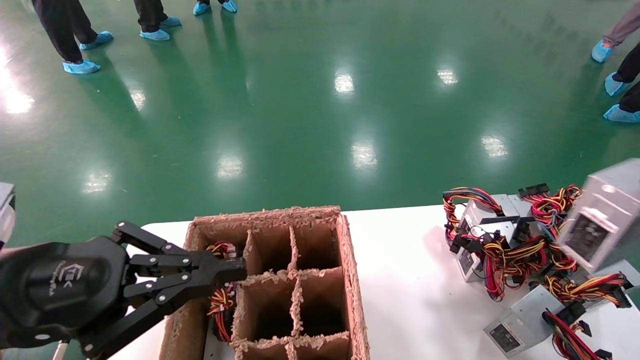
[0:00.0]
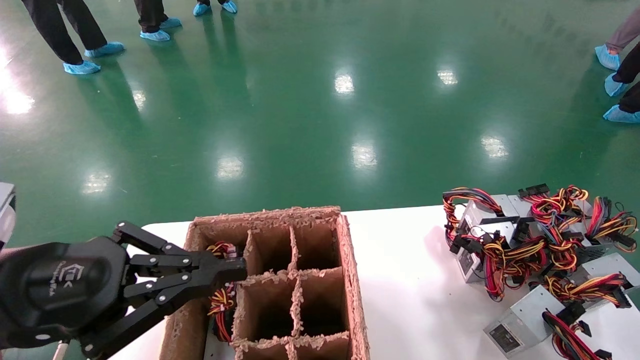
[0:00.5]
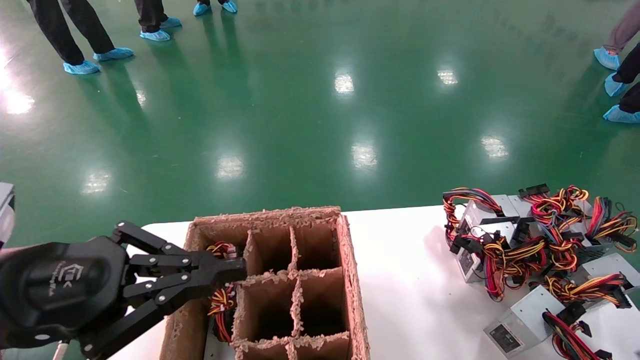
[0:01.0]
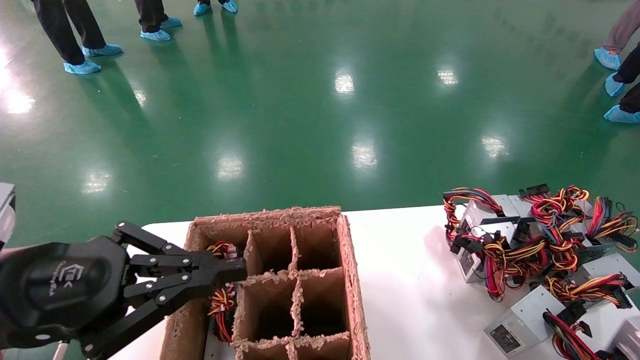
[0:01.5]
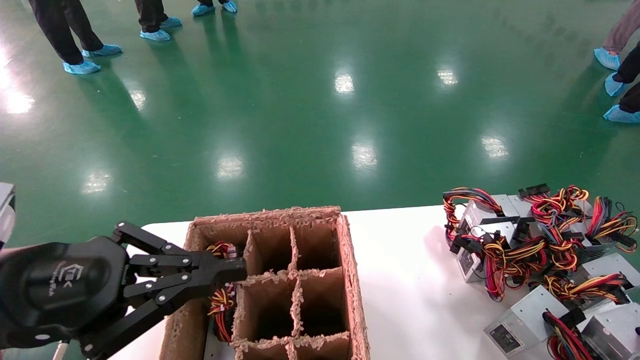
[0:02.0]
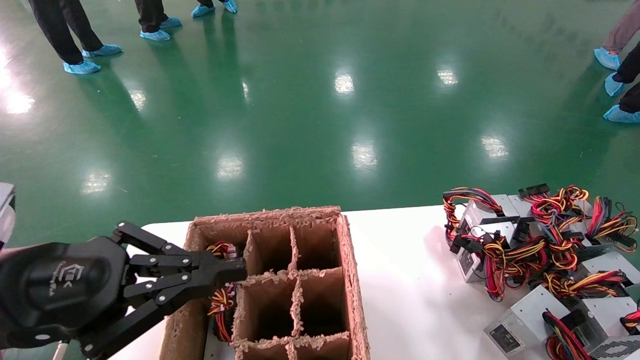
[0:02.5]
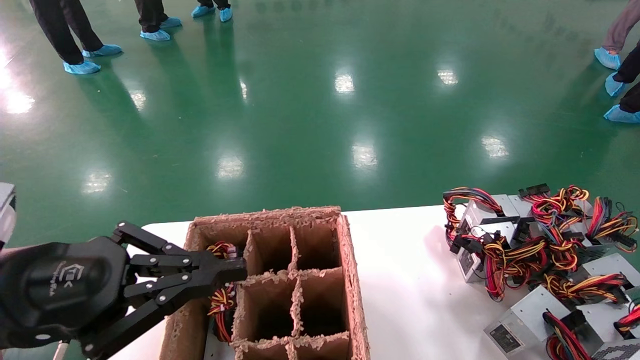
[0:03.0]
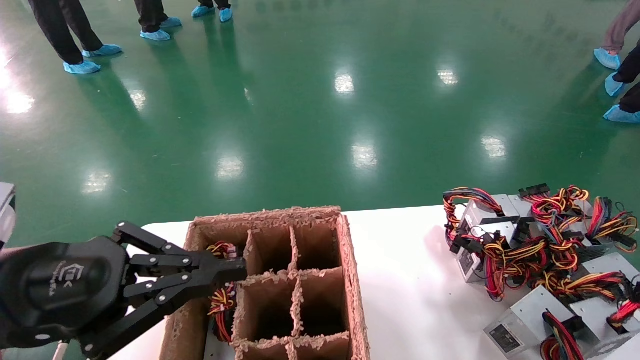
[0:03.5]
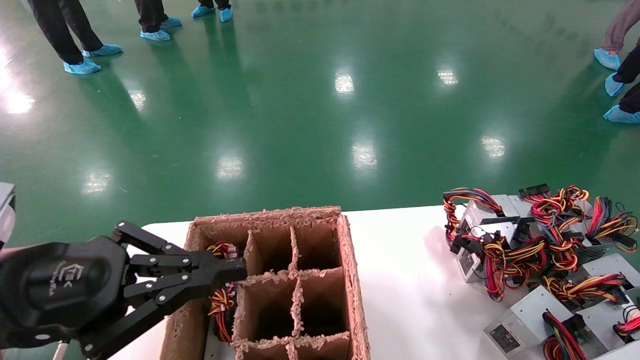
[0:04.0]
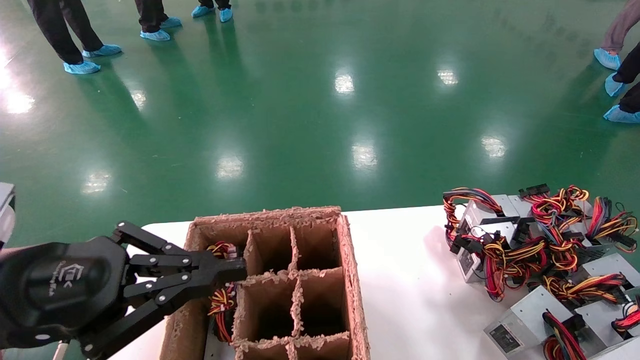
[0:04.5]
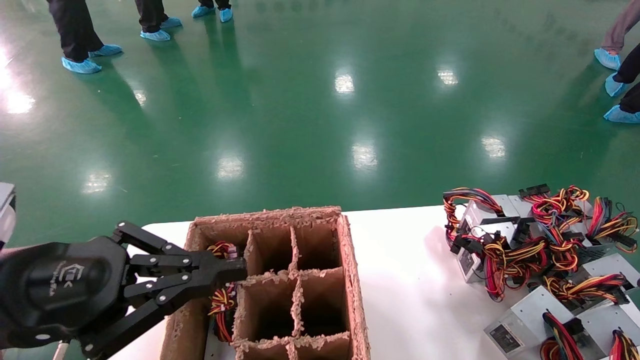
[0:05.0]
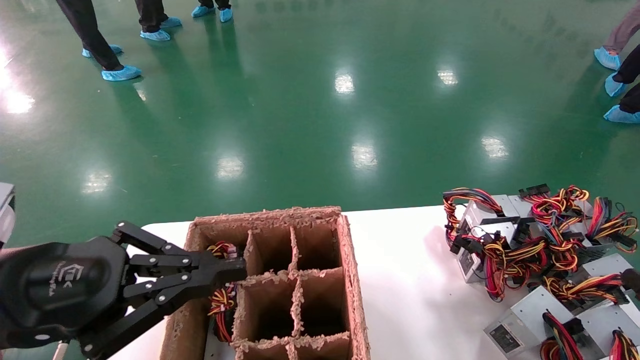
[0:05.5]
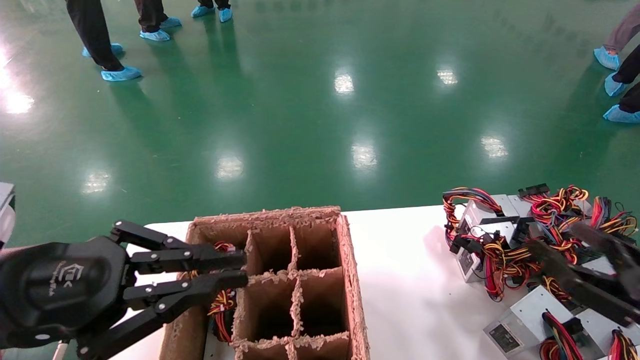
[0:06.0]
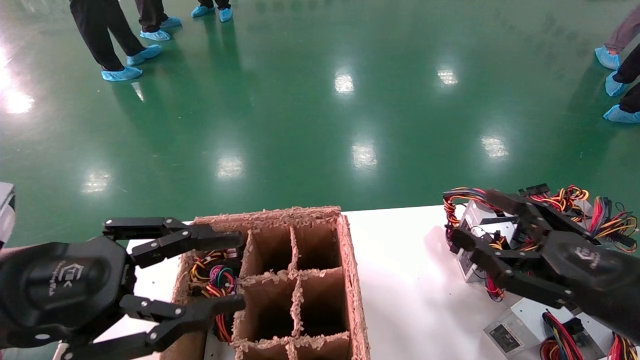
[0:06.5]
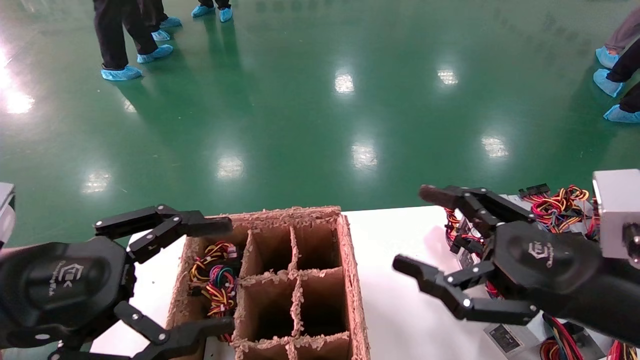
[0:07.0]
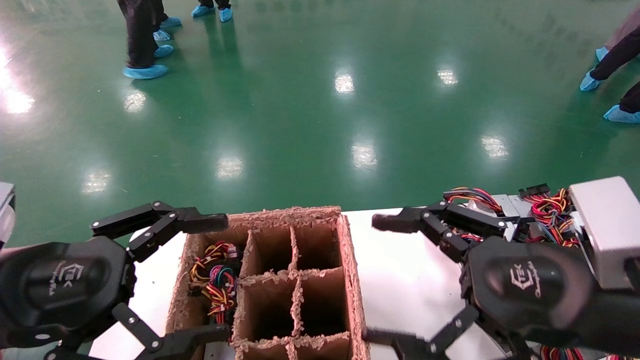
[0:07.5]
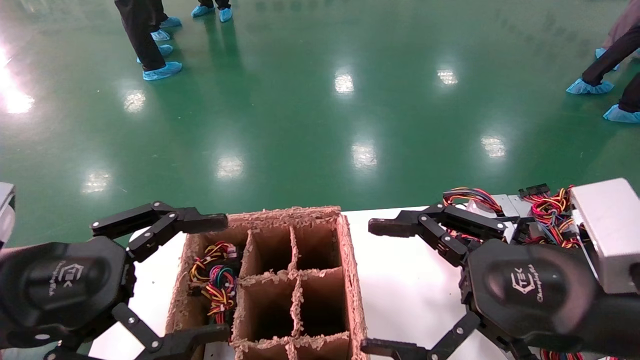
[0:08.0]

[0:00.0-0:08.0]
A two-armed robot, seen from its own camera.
Step, 0:00.0 to 0:05.0: Place the main unit power supply in the designated area.
0:00.0 to 0:02.0: The right gripper is displaced downward by approximately 15 cm.
0:02.0 to 0:04.0: The grippers stay close to where they were, moving slightly.
0:04.0 to 0:06.0: The right gripper shifts some 10 cm to the left, upward and forward, and opens up.
0:06.0 to 0:08.0: The left gripper opens up, while the right gripper heads to the left and upward, covering approximately 20 cm.
